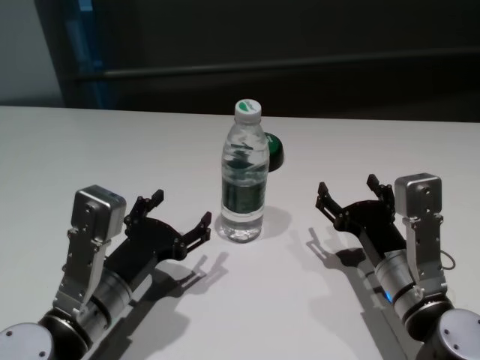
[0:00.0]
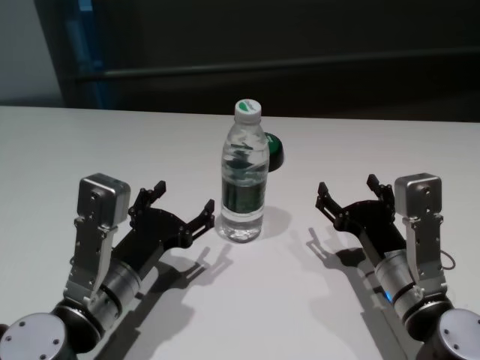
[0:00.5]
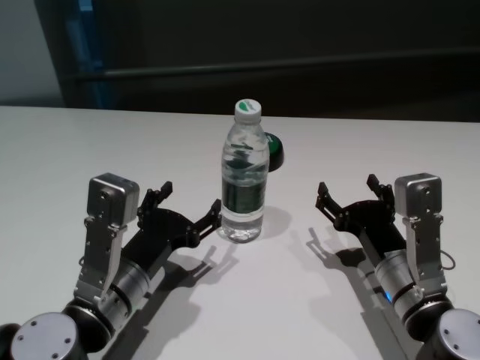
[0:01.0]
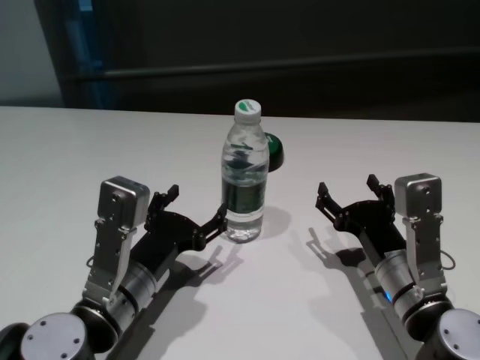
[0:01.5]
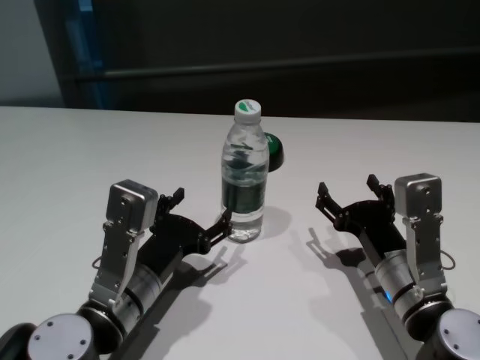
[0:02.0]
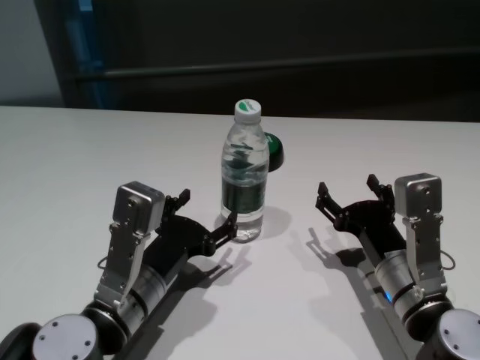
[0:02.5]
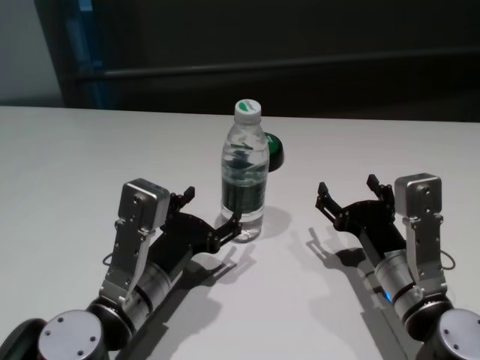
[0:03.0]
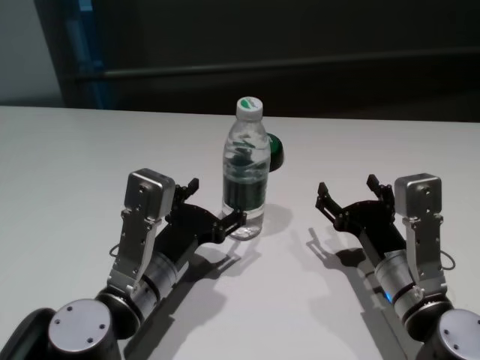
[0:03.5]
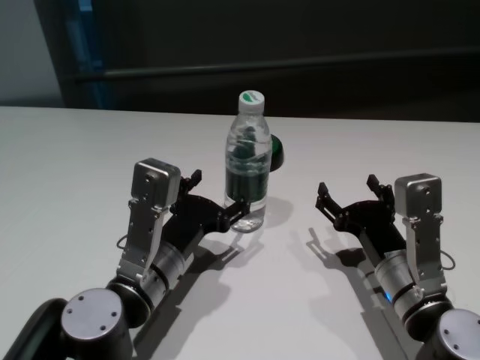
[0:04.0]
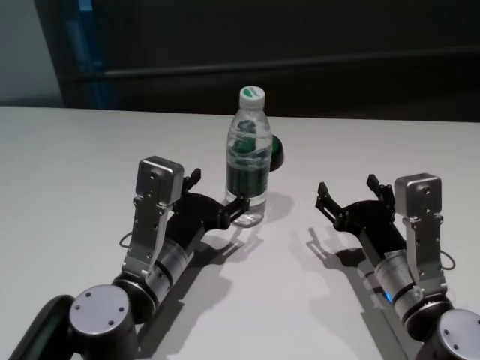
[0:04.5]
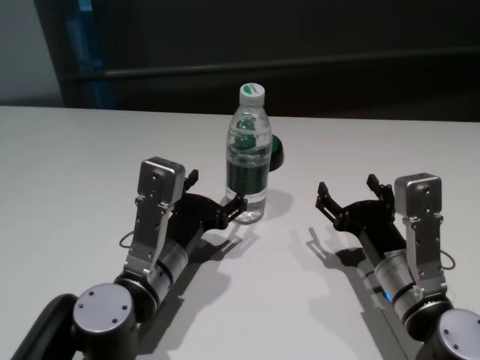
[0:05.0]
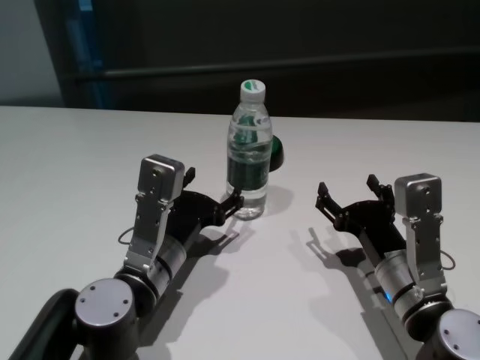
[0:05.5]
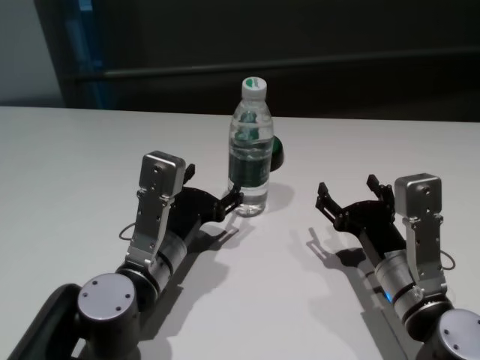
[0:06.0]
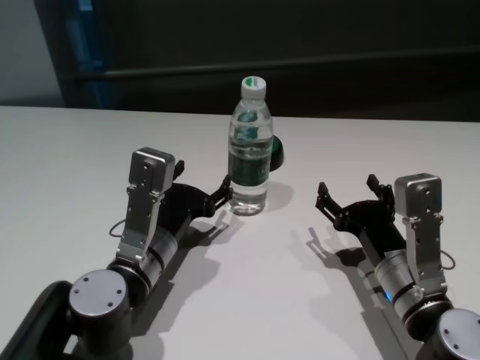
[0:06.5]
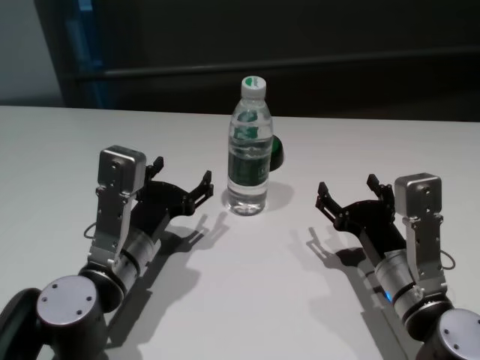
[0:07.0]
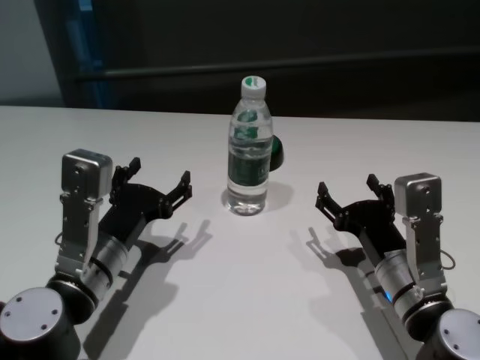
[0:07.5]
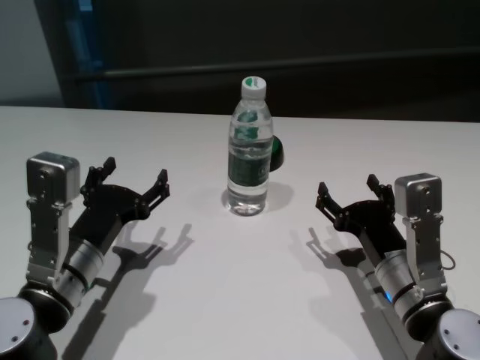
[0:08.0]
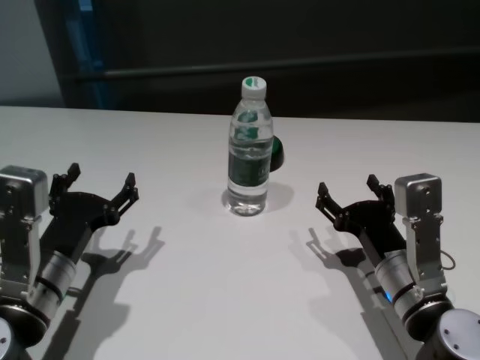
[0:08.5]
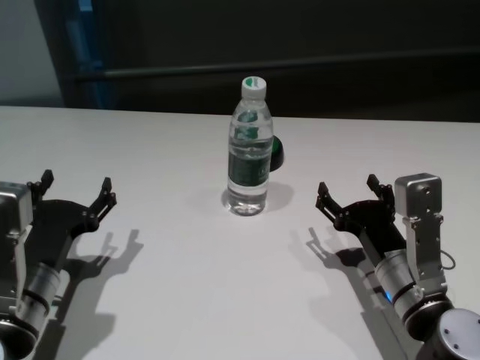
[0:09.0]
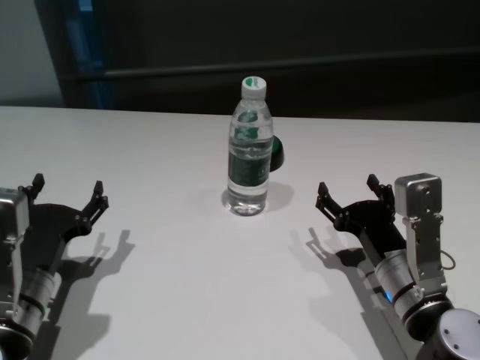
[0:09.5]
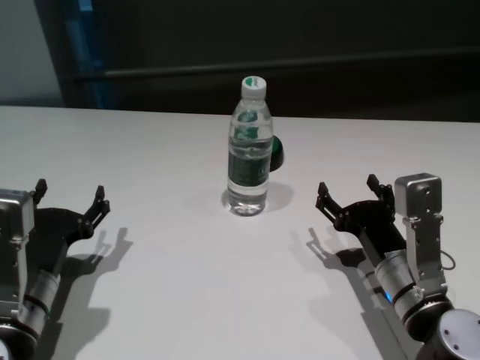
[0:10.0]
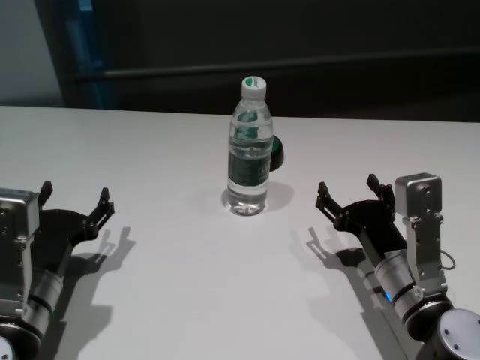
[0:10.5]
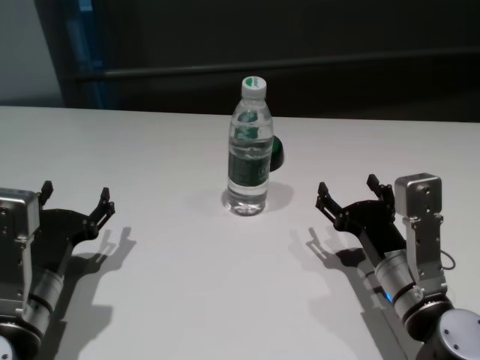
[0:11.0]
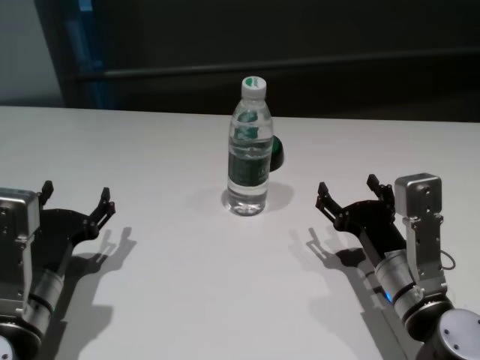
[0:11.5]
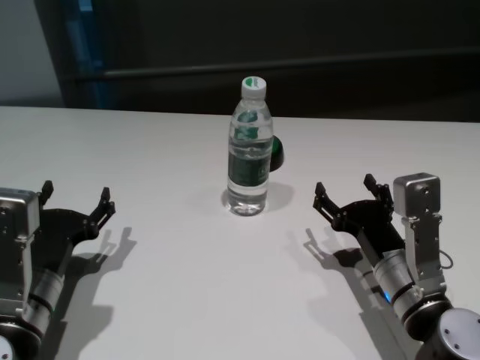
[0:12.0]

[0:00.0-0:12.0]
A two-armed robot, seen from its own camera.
Task of the whole recording: return to a safe position after touching an obstacle with your arm on the white table.
Step, 0:00.0 to 0:07.0: Touch the bottle with left gripper.

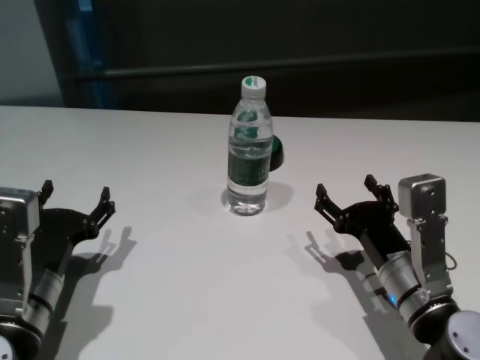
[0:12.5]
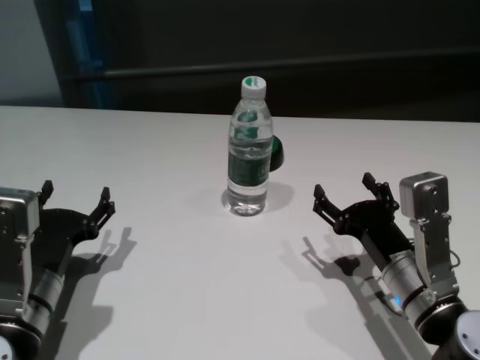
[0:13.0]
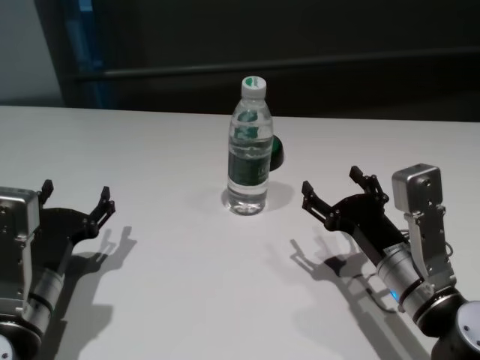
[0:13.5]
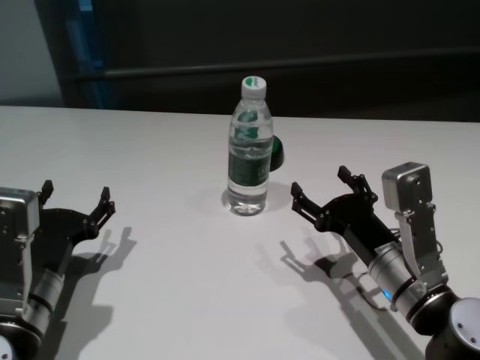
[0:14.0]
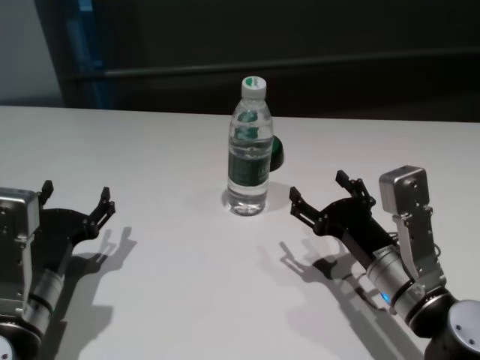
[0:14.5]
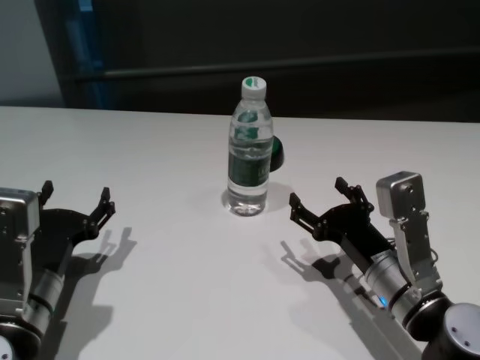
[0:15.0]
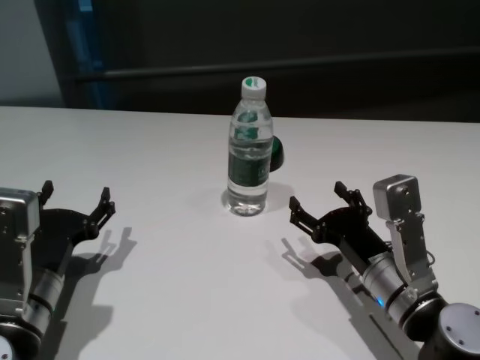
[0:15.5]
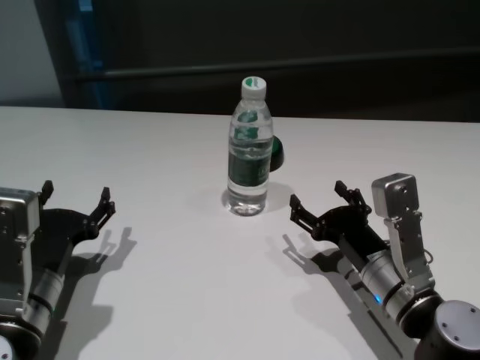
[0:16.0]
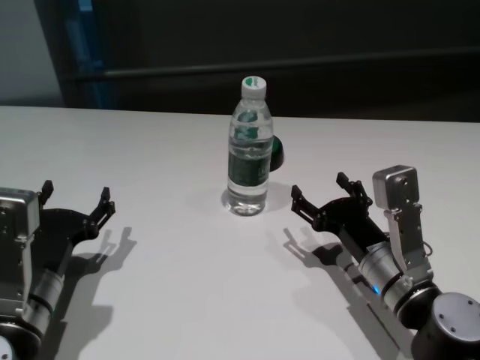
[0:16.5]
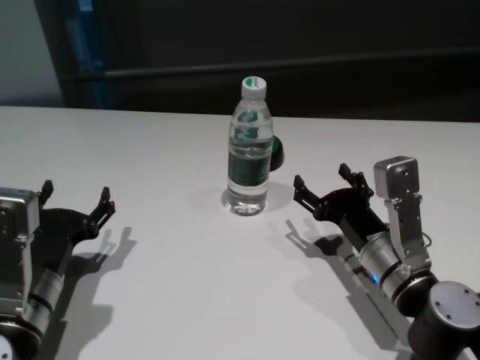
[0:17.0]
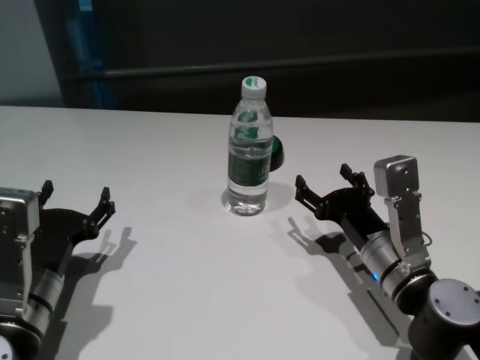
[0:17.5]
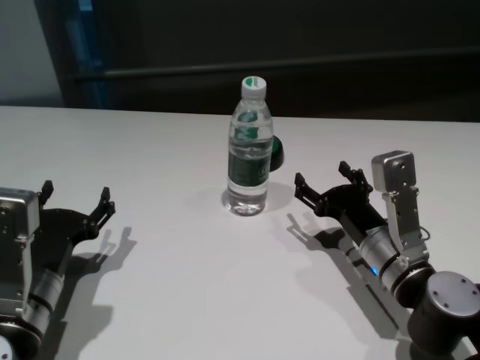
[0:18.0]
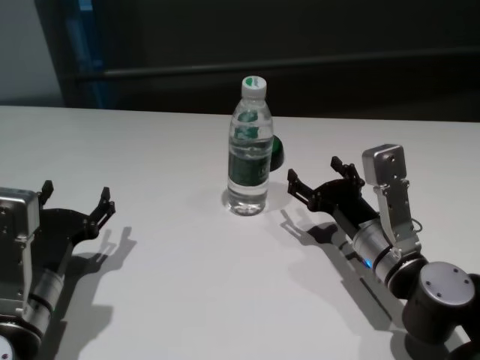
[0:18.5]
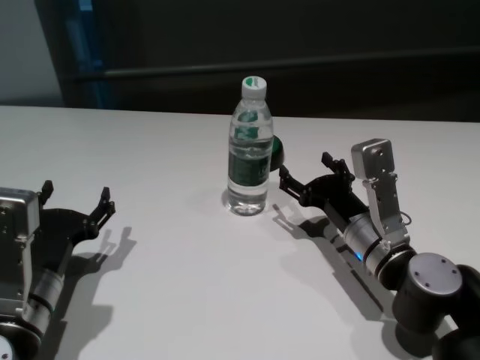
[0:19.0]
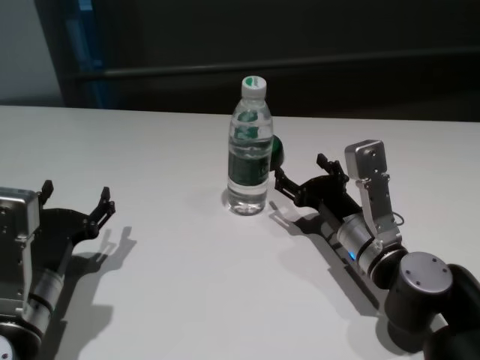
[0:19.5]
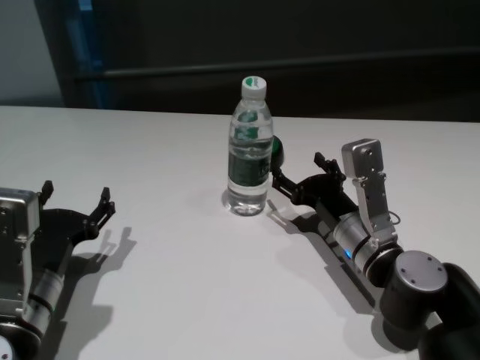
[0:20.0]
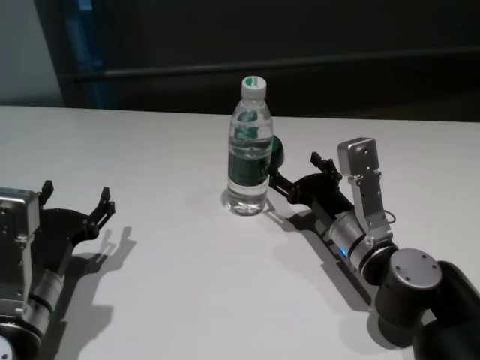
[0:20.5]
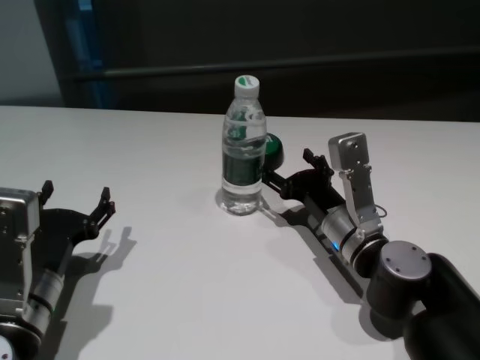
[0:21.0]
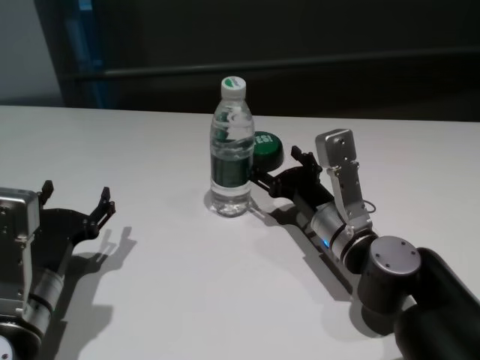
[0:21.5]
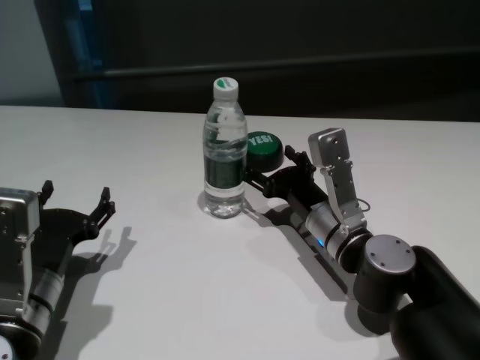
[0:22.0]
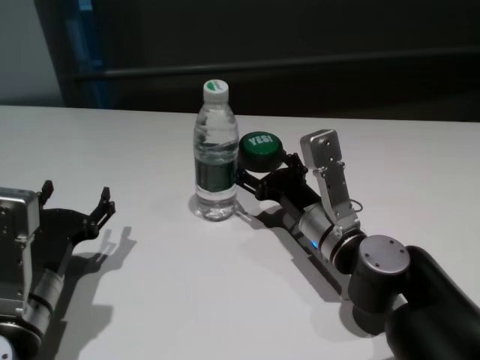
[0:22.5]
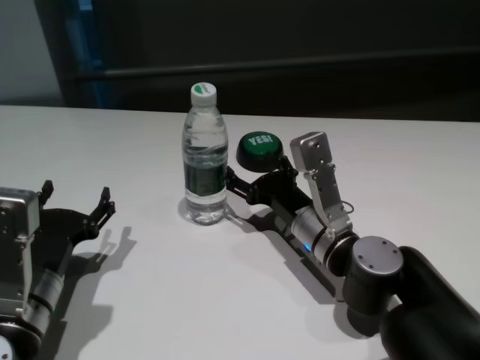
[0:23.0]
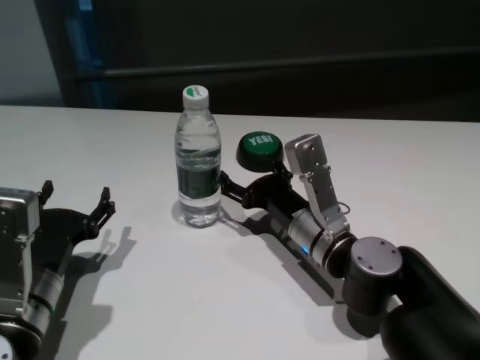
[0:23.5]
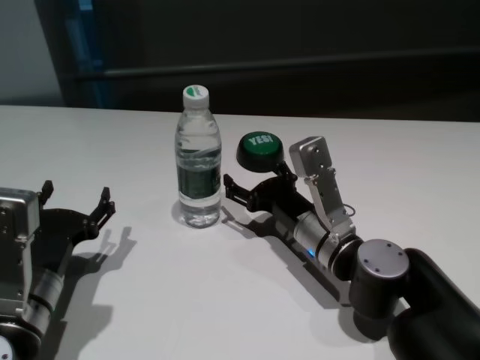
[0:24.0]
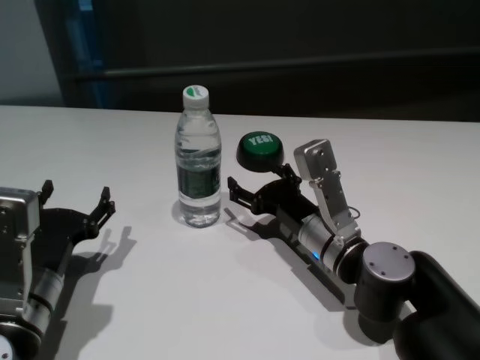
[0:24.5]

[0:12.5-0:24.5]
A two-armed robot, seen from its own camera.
Task of the whole recording: return to a safe position after touching an obstacle with your arm on the white table.
Step, 0:12.5 to 0:24.5: Touch the bottle with right gripper.
